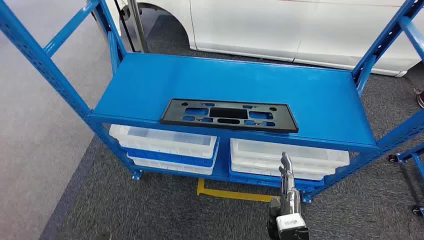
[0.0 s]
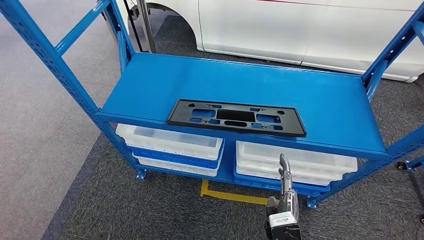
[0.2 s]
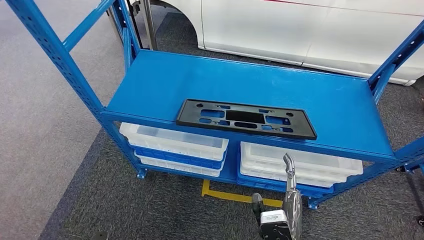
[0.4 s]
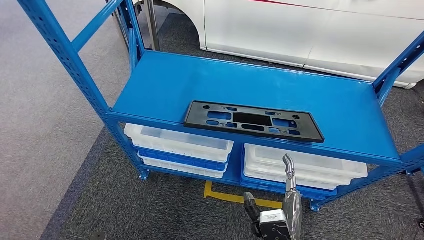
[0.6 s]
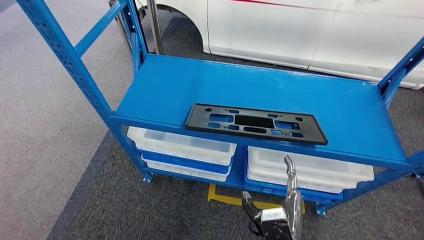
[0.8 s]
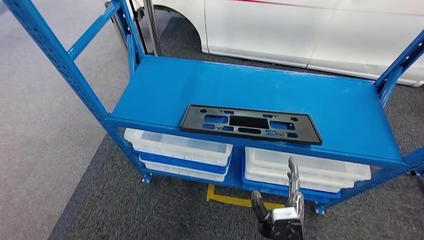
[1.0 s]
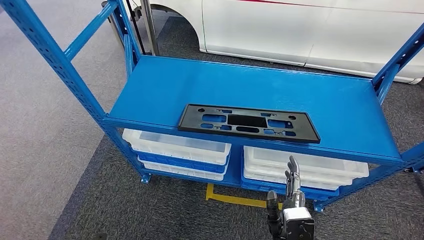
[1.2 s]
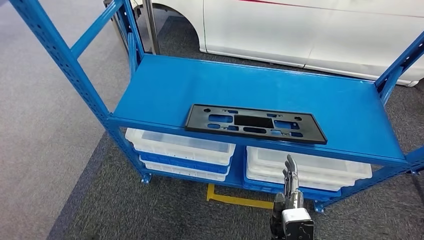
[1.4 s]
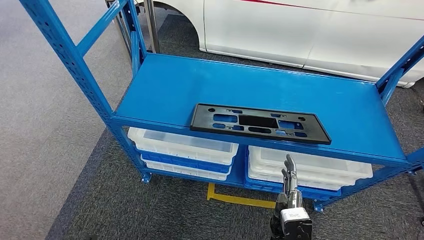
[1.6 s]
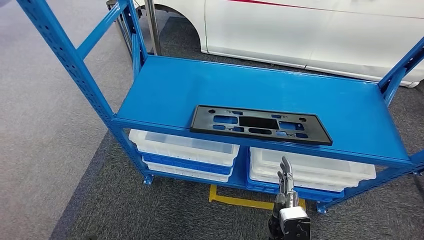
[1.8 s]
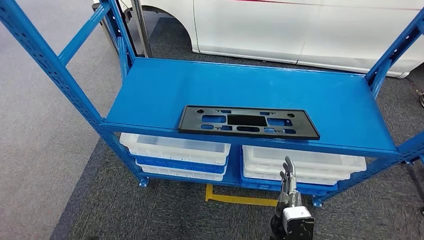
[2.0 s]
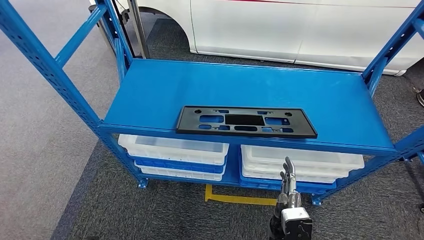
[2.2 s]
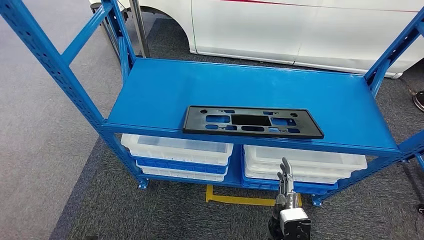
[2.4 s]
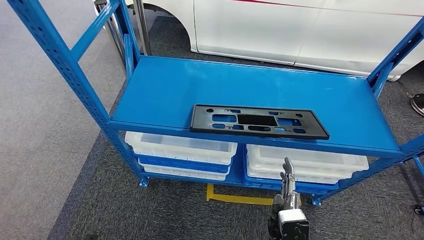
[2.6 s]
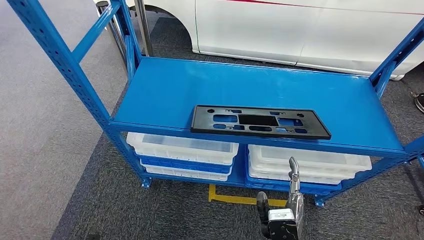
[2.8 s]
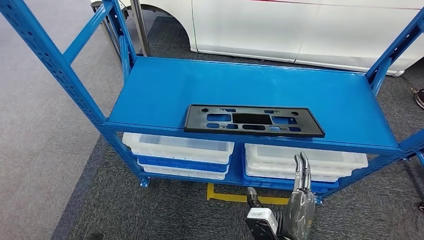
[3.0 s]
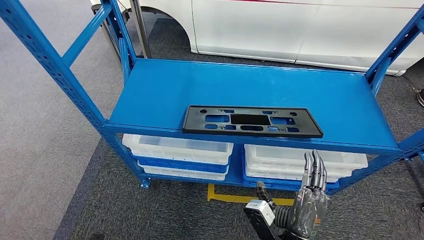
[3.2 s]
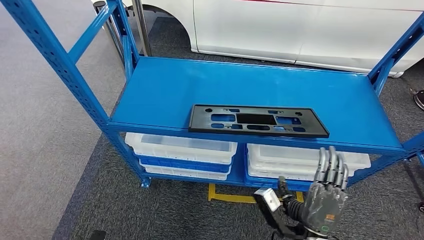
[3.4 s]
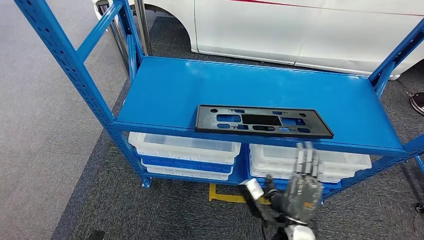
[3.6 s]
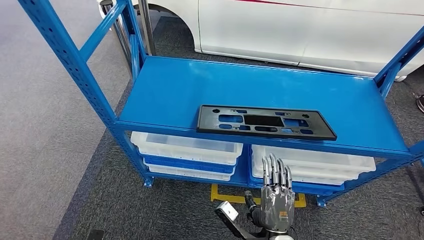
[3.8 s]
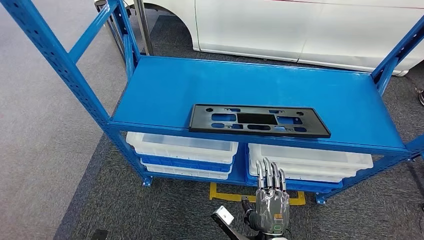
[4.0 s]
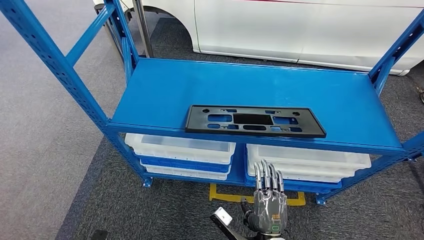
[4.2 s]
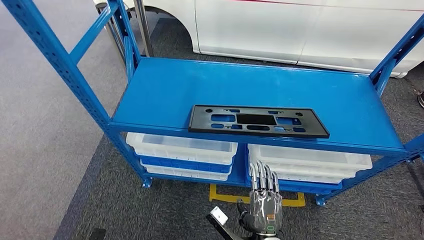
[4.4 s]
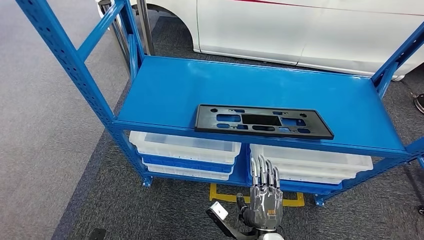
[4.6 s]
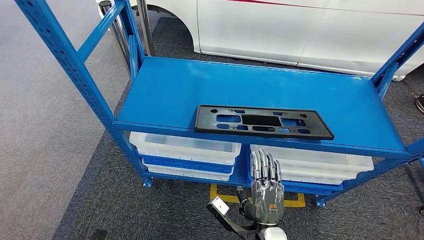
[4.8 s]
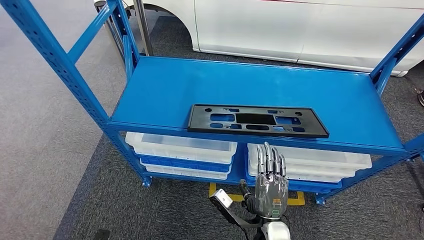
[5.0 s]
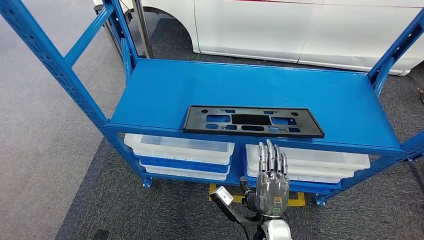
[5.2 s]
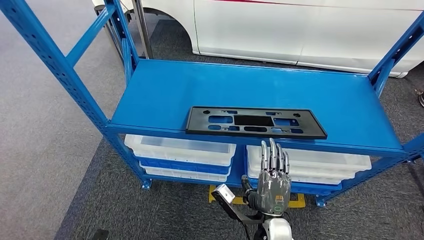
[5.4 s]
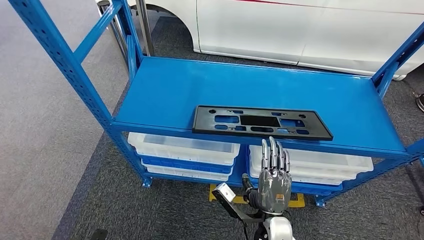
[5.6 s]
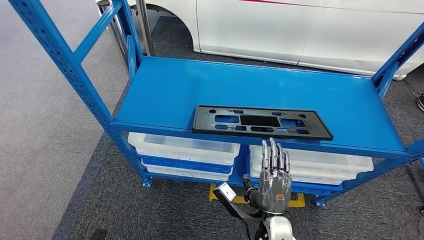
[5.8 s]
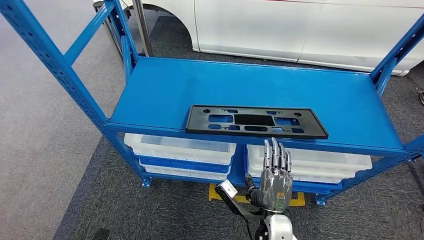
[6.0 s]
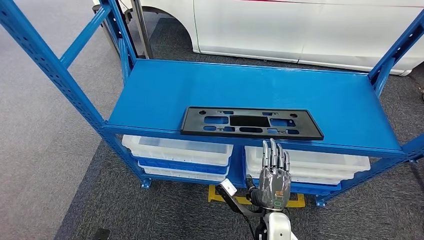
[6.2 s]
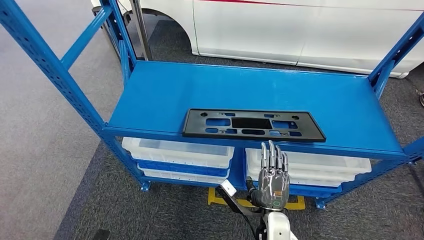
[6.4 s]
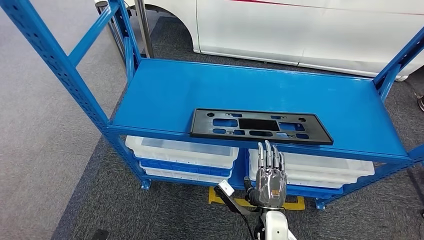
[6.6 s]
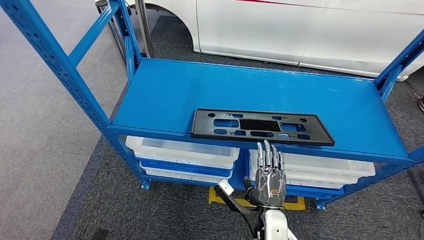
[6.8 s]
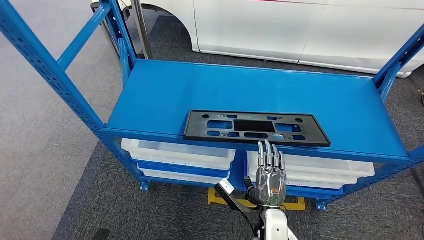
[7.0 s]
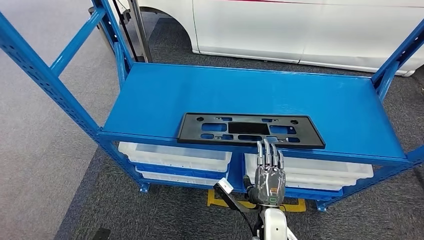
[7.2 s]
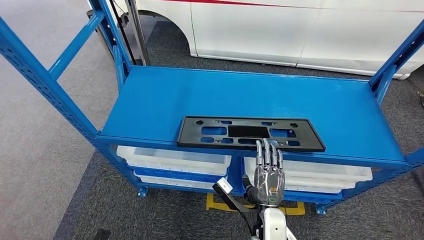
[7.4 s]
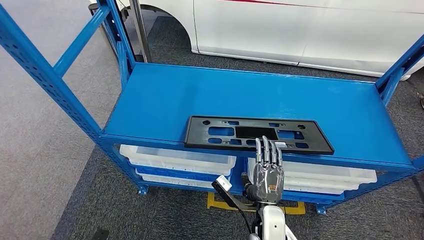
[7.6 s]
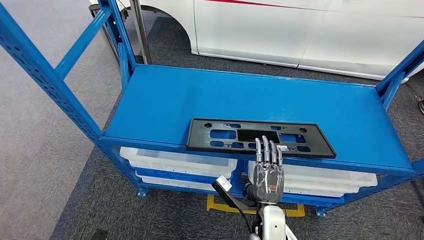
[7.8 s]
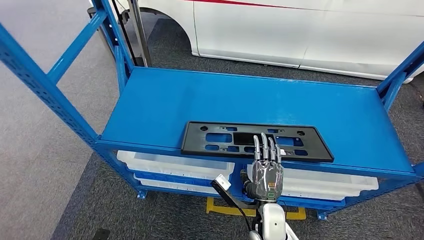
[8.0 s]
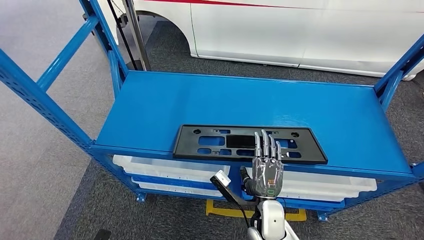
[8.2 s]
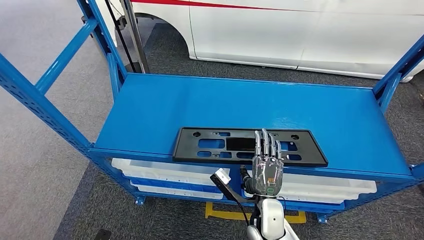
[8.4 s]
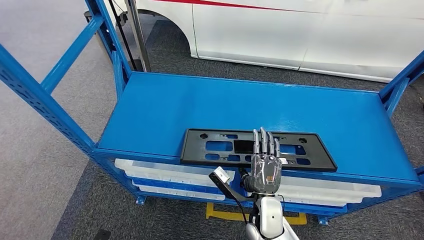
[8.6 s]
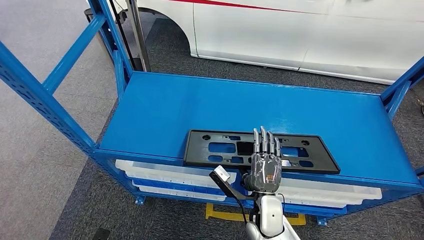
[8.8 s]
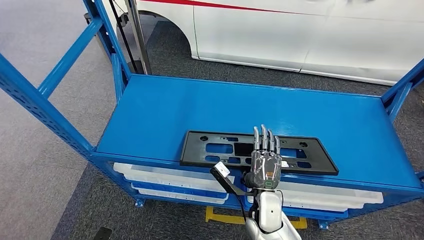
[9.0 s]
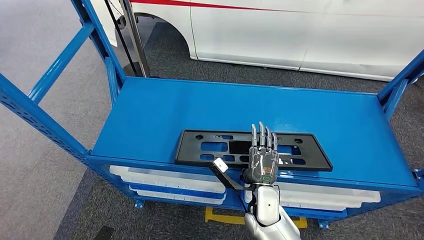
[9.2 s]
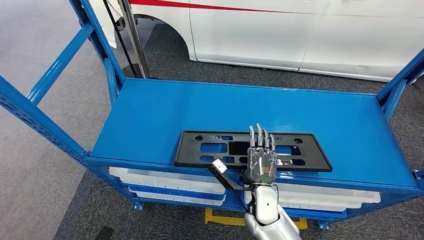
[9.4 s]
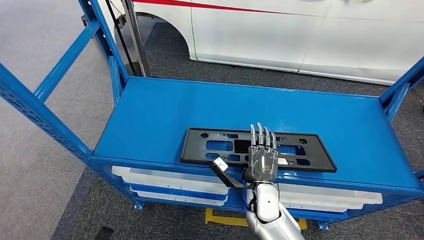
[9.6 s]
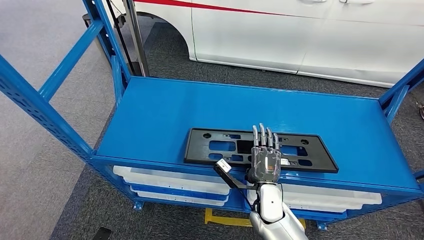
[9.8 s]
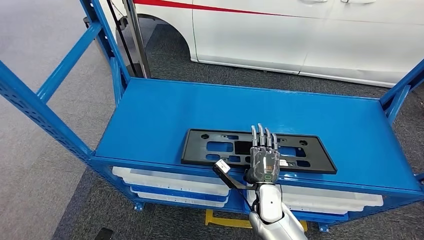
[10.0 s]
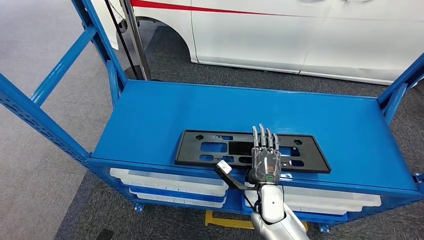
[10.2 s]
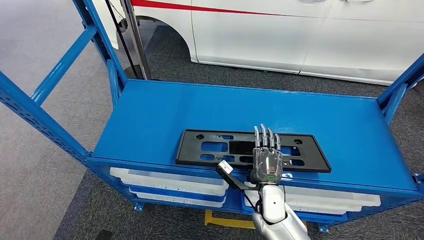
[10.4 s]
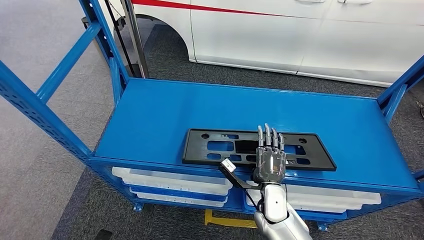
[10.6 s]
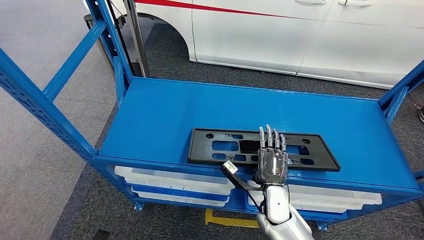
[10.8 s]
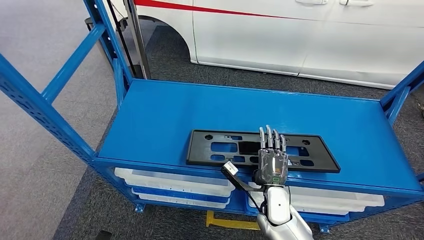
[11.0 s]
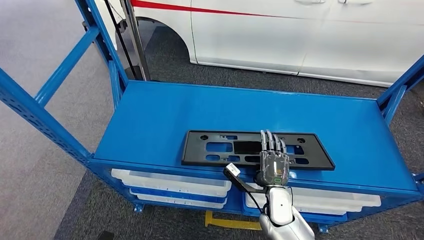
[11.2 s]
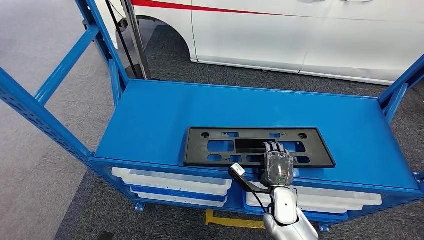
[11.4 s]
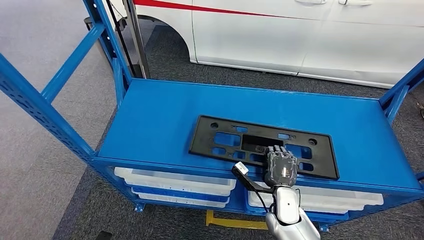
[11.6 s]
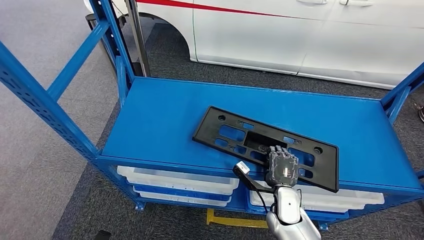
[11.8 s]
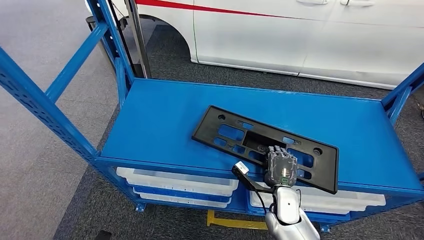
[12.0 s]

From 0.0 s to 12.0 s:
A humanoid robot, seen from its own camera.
From 3.0 s to 4.4 s: The right hand is displaced downward by about 10 cm.
From 4.4 s to 6.0 s: The right hand shifts approximately 5 cm forward.

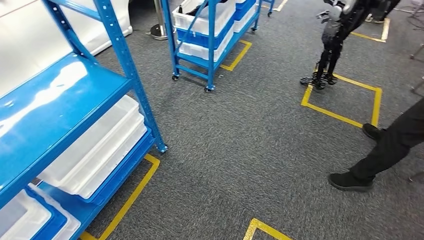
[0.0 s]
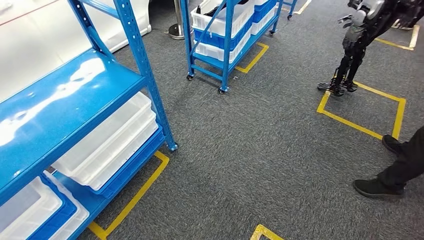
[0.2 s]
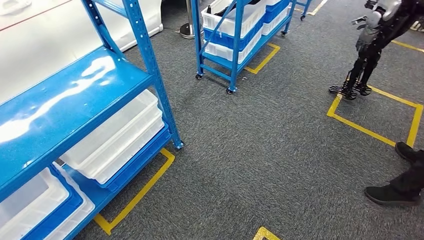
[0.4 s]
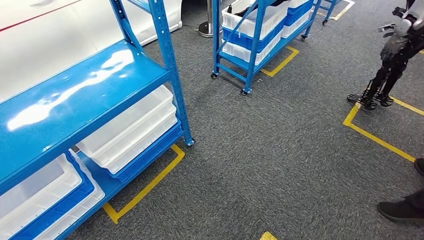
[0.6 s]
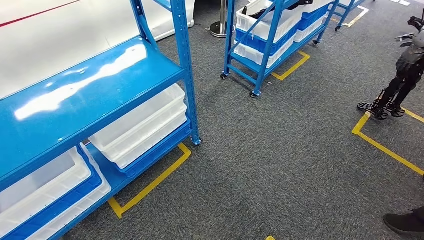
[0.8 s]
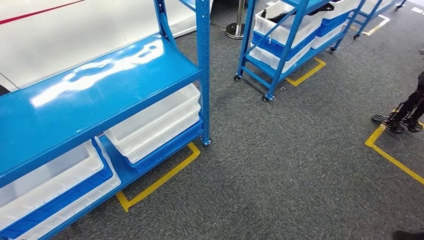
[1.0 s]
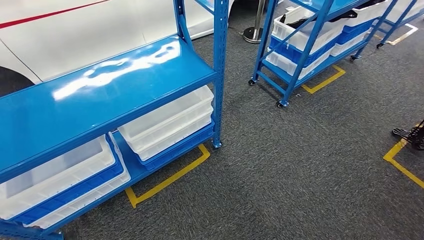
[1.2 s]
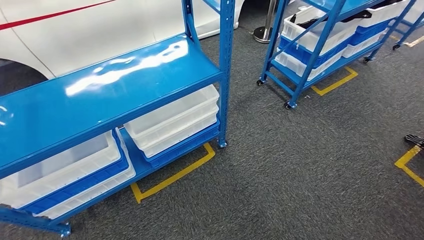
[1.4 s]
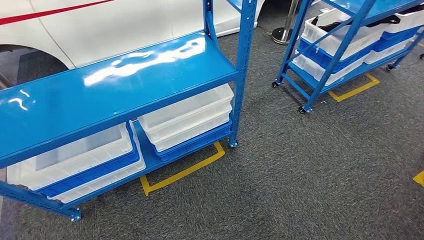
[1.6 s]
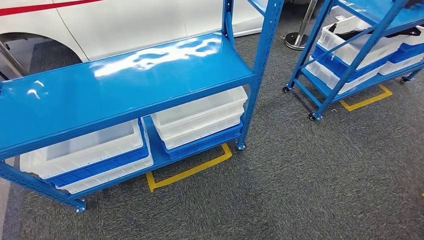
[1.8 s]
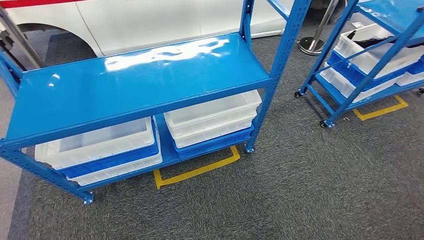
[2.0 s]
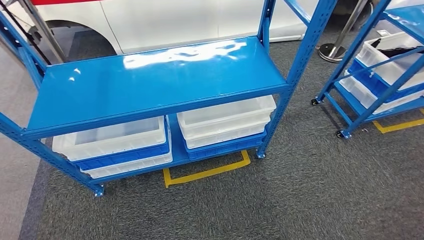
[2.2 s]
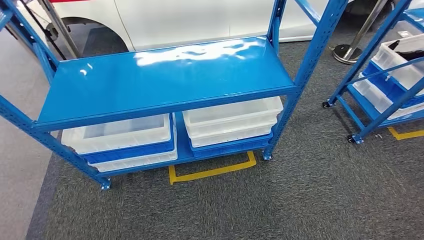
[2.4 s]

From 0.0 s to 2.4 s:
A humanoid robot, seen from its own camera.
Step, from 0.0 s to 2.2 s: Move to the initial position of the shelf.
